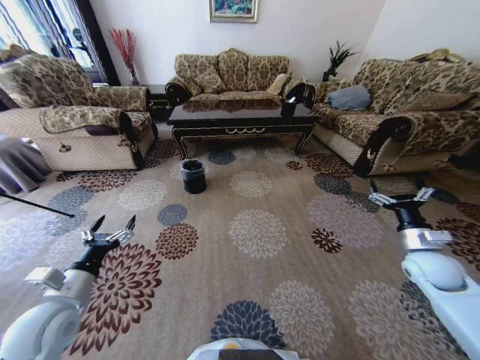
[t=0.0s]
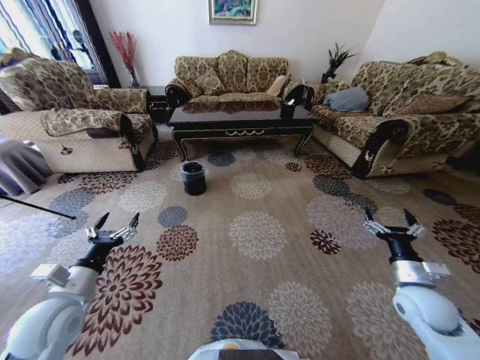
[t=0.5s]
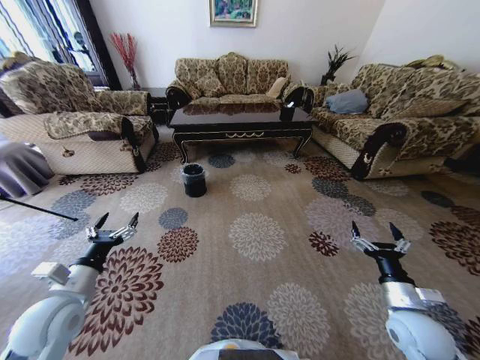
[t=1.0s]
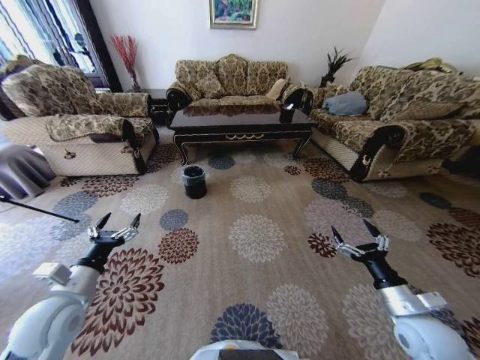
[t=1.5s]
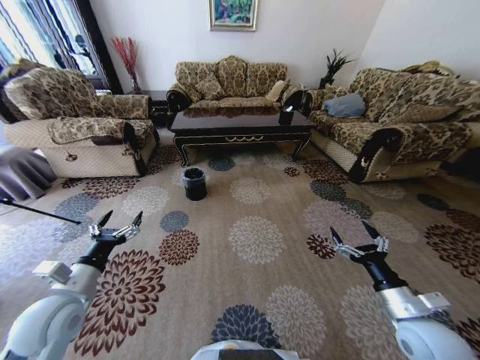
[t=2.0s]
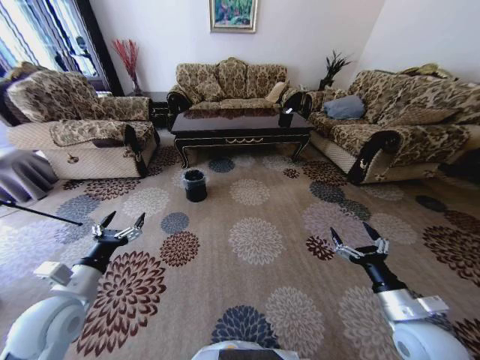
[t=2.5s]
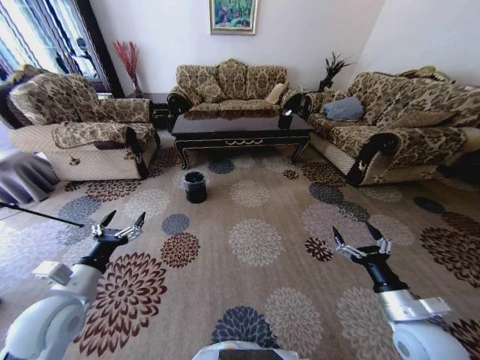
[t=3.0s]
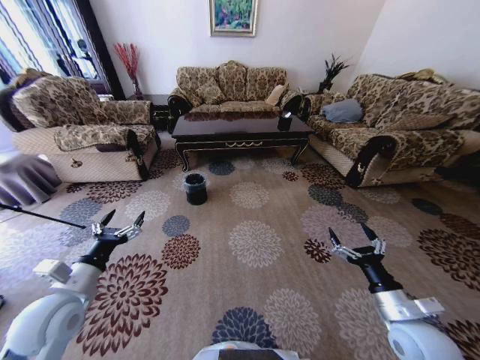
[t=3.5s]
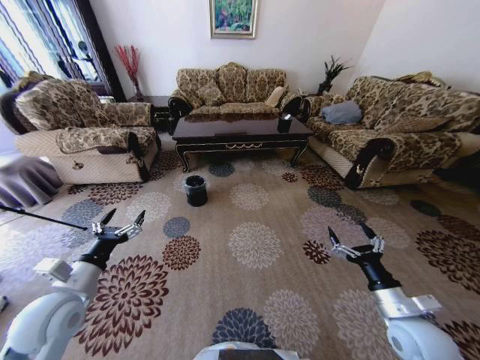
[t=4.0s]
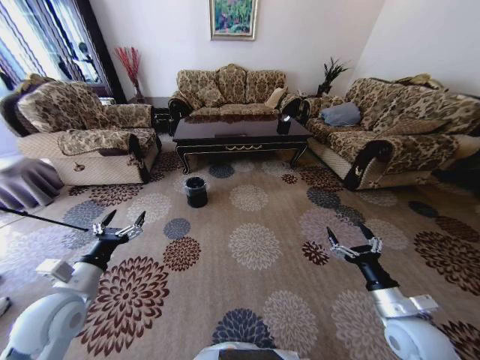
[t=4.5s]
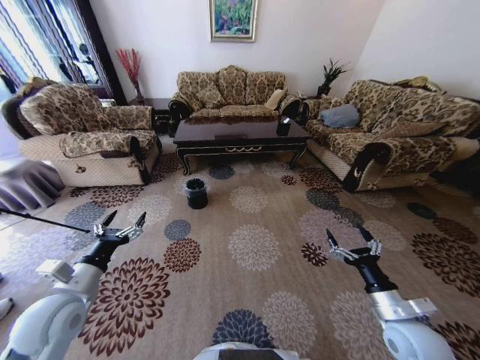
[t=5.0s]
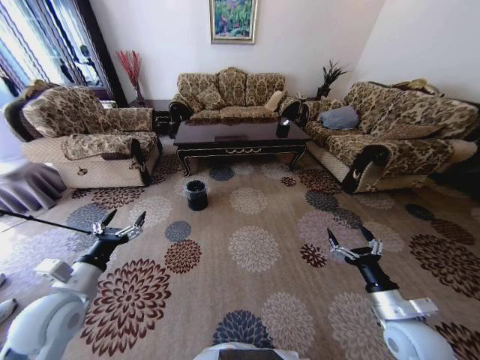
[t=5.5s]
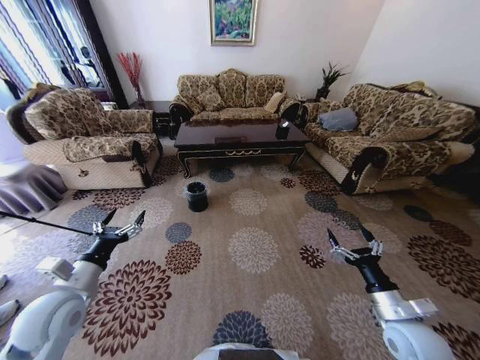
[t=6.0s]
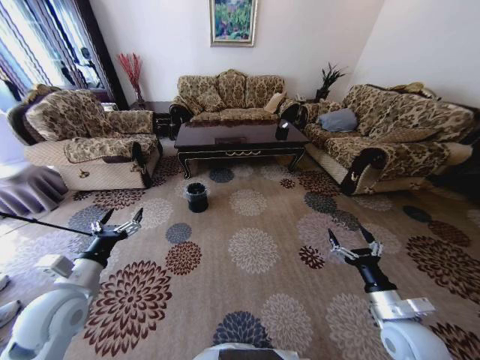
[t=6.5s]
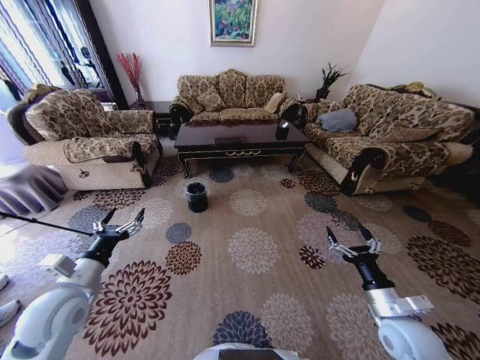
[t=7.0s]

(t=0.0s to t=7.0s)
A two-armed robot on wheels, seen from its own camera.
Task of the whole recording: Move to the front of the table and pick up the trash from the floor, then place it into the trash bin.
t=0.0s - t=2.0s: The right gripper heads backward and to the left, covering approximately 20 cm.
